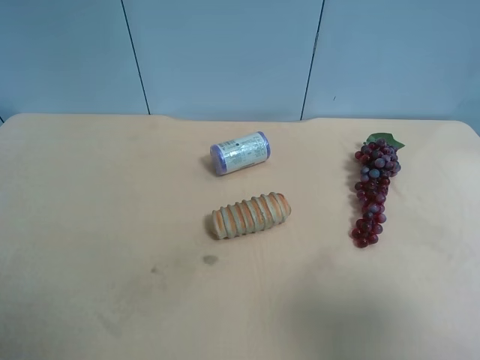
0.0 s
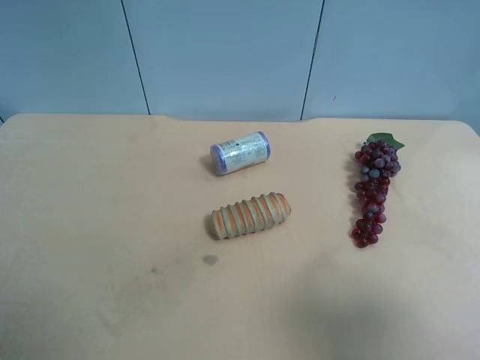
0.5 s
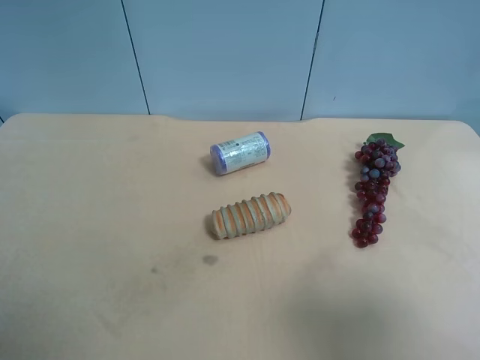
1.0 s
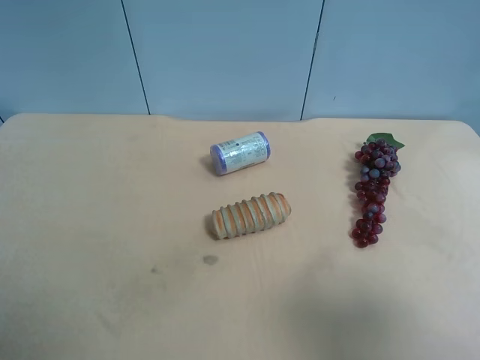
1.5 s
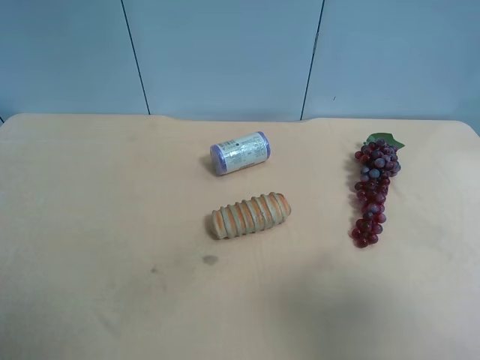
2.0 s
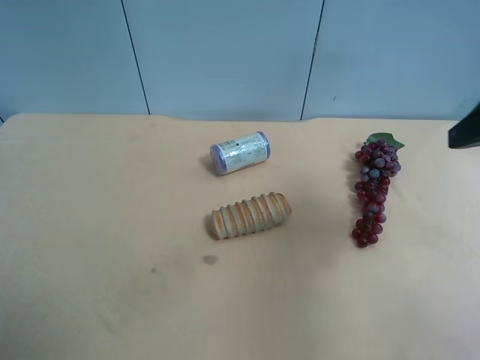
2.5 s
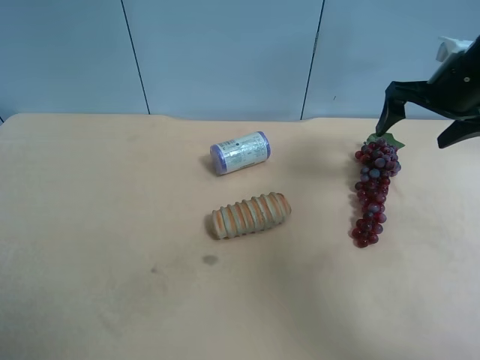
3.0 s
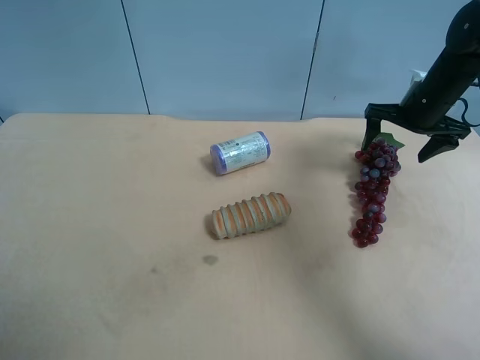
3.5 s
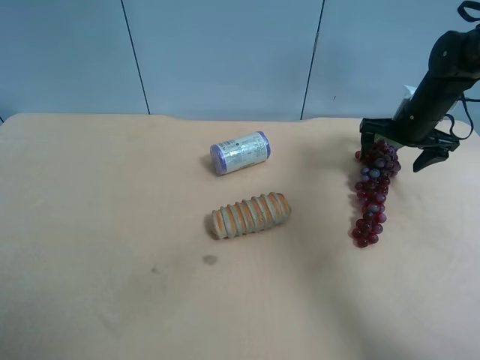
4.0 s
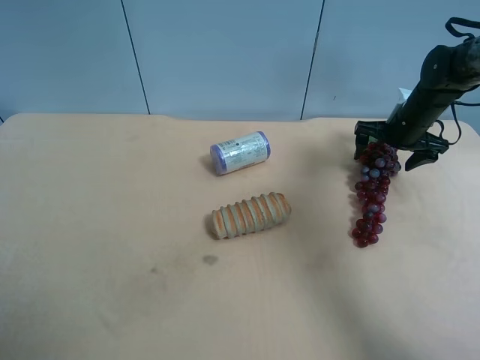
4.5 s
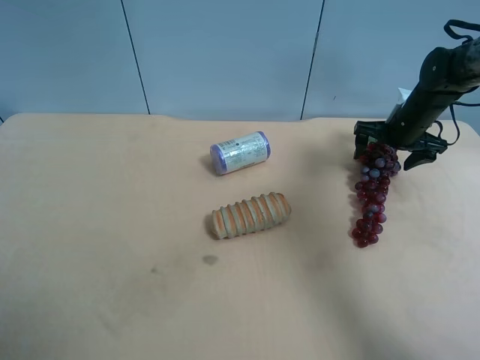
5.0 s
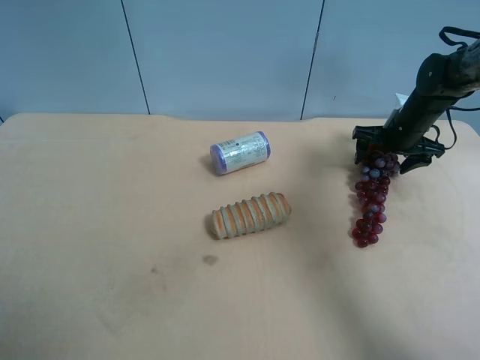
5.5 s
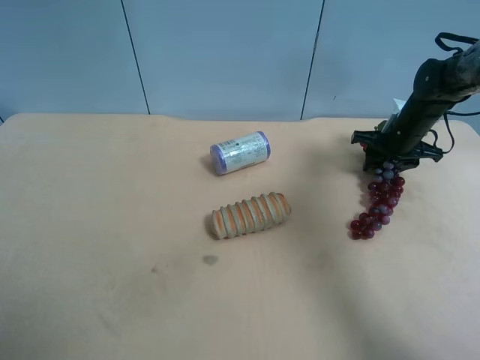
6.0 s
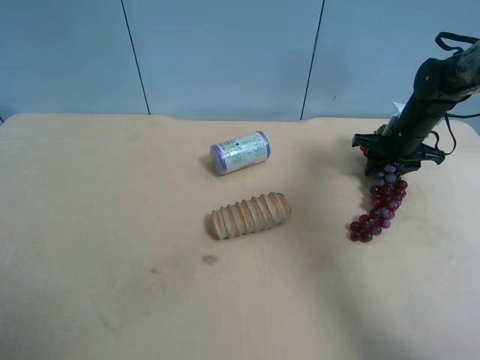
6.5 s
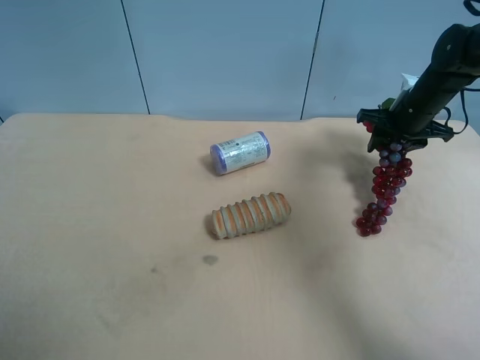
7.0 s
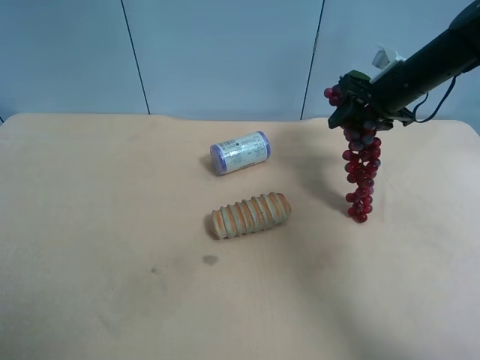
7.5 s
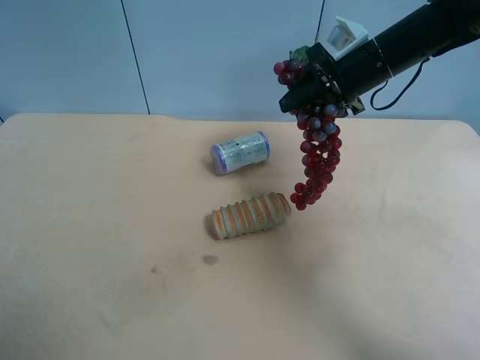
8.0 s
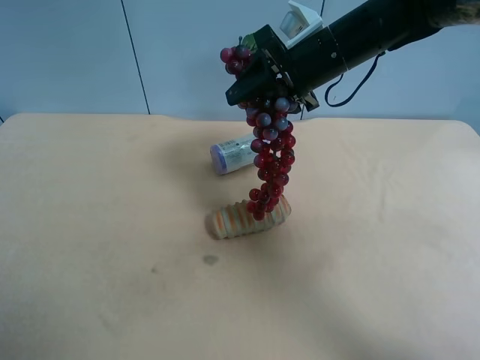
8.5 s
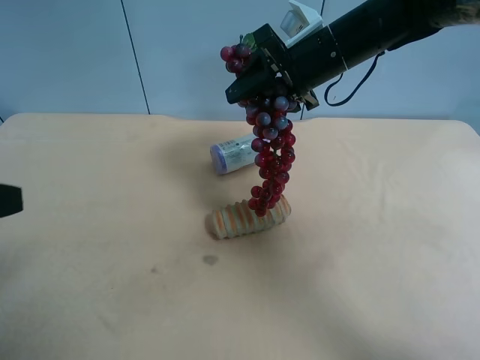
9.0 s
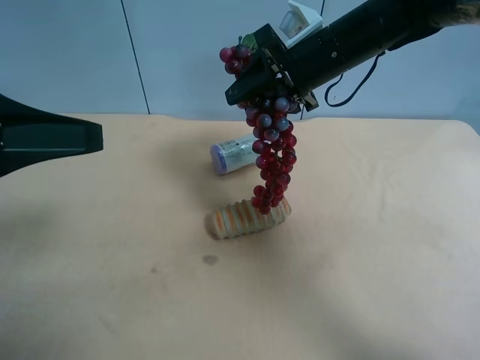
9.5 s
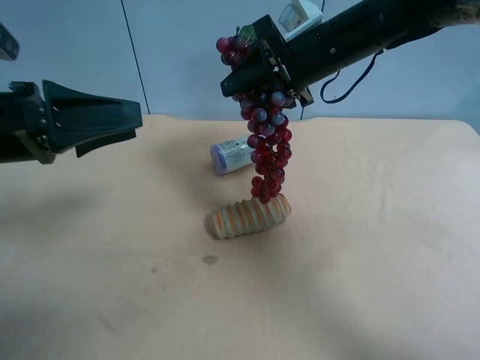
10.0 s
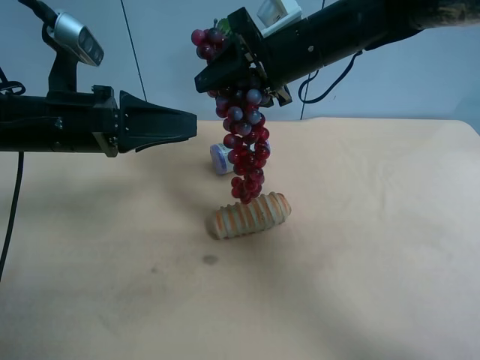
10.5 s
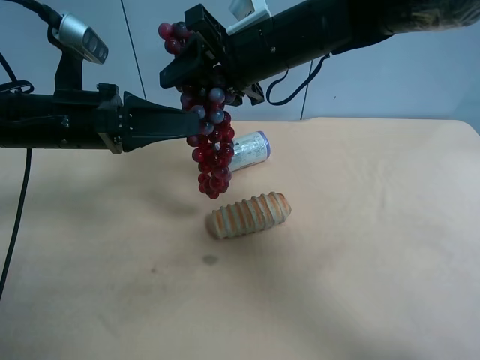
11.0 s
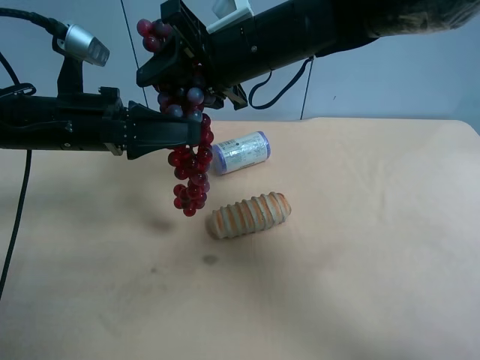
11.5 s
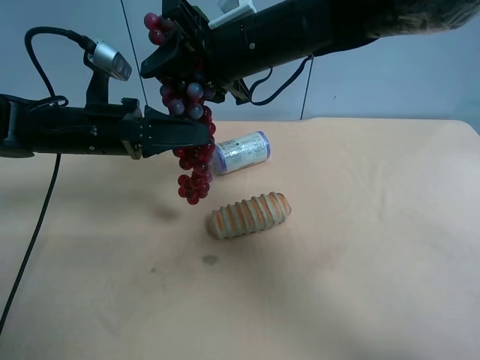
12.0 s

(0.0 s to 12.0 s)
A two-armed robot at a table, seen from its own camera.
Task of the whole recording: use the right gripper to pick up the item and transfer it from the right gripper to the left gripper.
2.0 s - 4.0 s: The right gripper moves forward, approximately 40 cm.
4.0 s - 6.0 s: The right gripper closes.
6.0 s - 8.0 s: The right gripper moves upward and to the left, roughly 20 cm.
8.0 s - 10.0 s: The right gripper heads to the left, covering some 5 cm; the left gripper travels forward by some 20 cm.
10.0 s - 12.0 s: The right gripper shifts some 10 cm to the left. Meanwhile the left gripper heads forward and downward, covering approximately 10 cm.

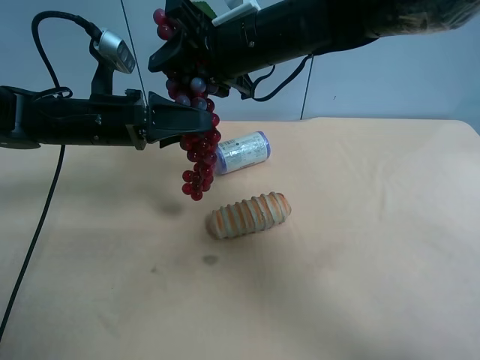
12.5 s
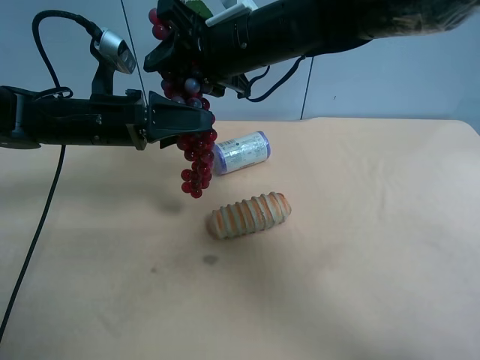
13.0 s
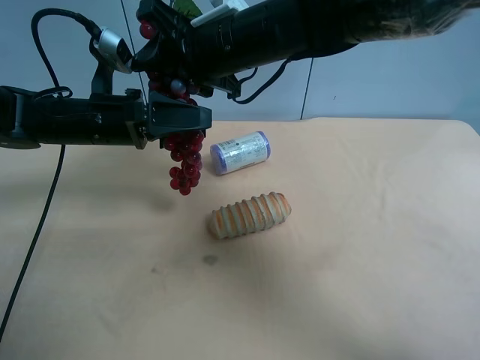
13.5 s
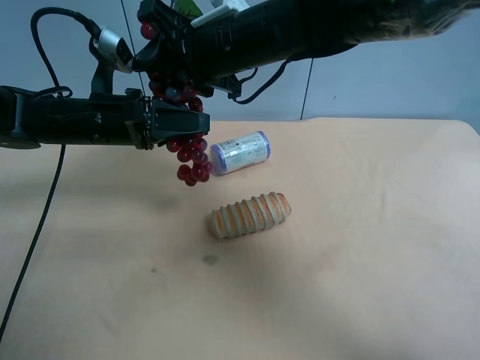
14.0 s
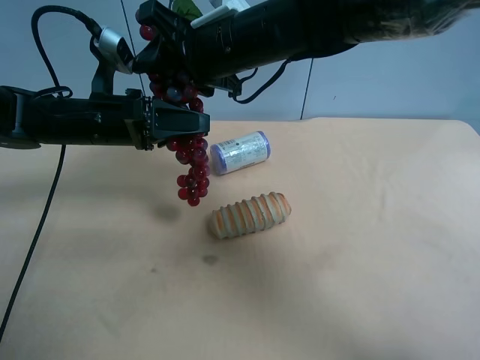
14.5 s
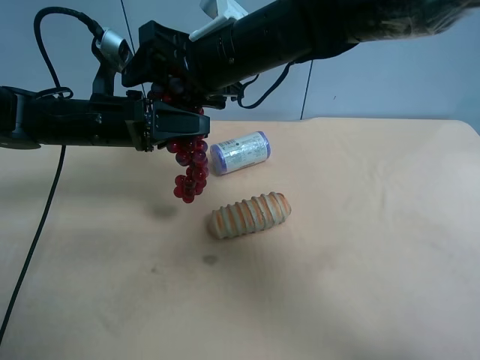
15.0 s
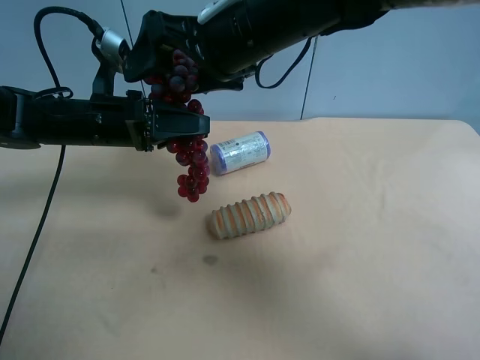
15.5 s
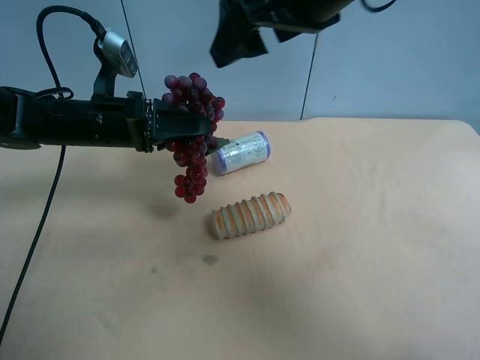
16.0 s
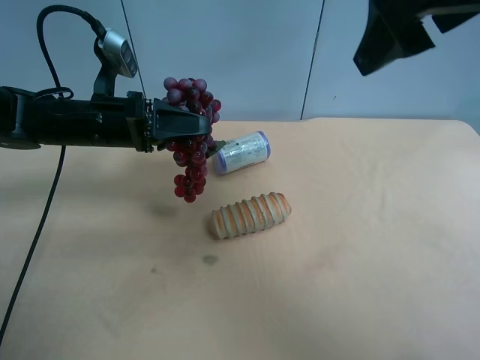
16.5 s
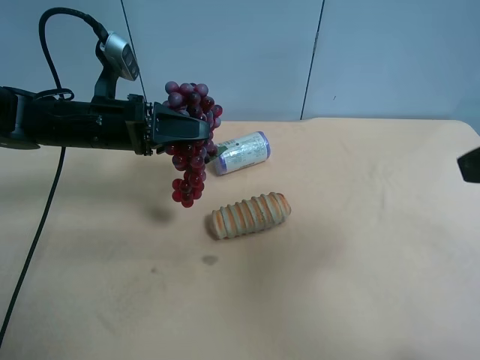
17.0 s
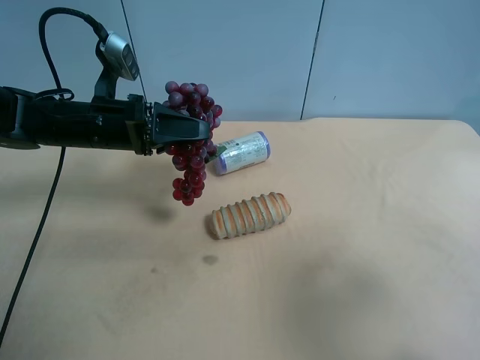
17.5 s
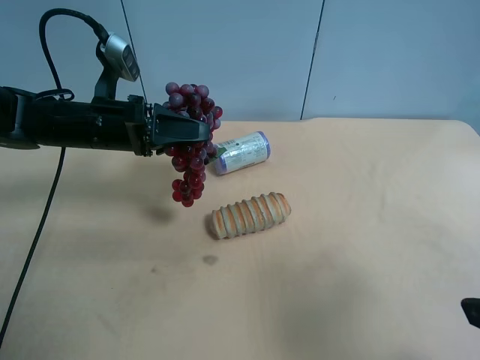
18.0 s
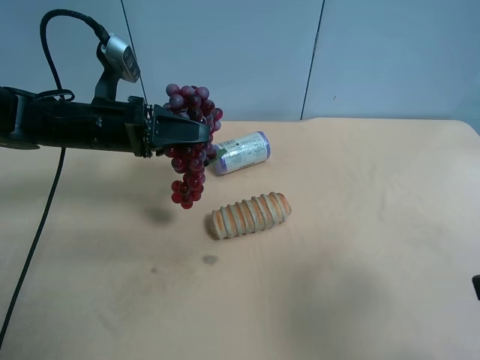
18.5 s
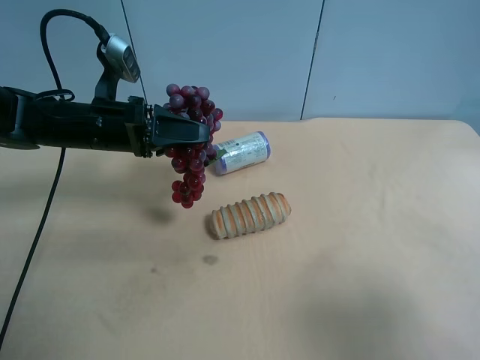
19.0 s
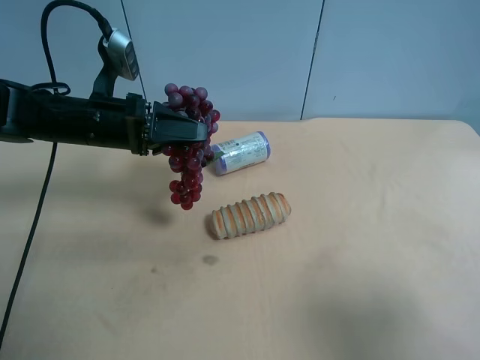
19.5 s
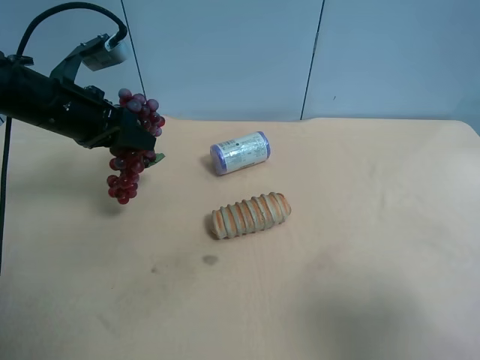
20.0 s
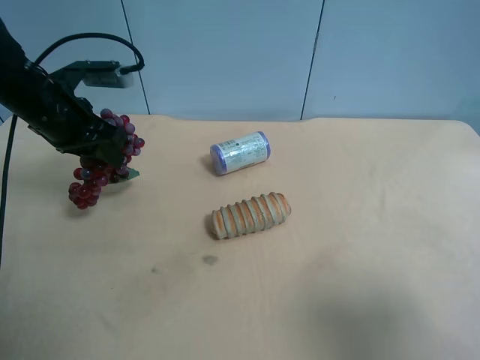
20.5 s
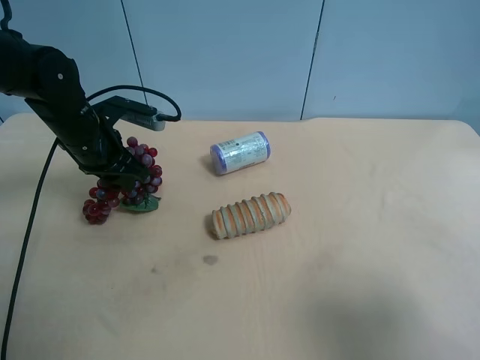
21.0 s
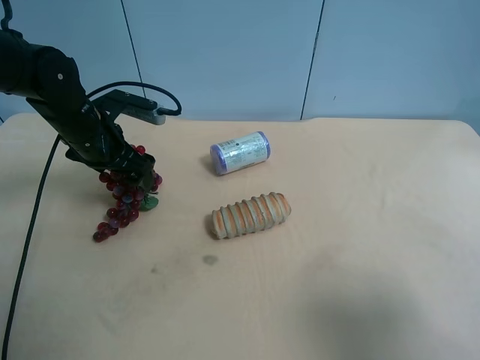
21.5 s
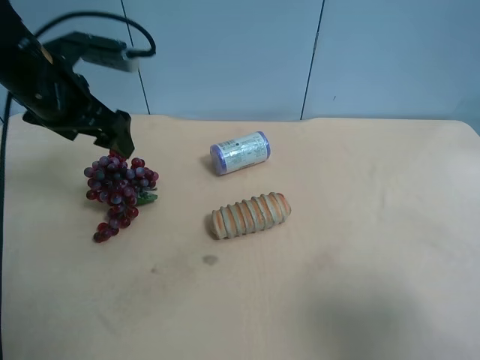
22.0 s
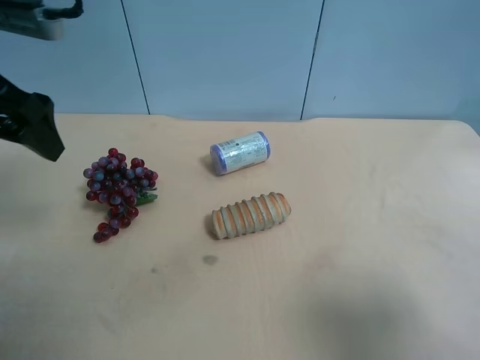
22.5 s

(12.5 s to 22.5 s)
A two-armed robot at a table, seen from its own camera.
Task of the whole recording: use the right gripper to pick up the item and transfer it from the right gripper to the left gripper.
12.5 s - 14.5 s: The left gripper closes up.
14.5 s - 16.5 s: The right gripper shifts some 25 cm to the right, backward and upward, and opens.
16.5 s - 18.5 s: The right gripper is displaced backward, downward and to the right by about 25 cm.
18.5 s - 20.5 s: The left gripper goes about 5 cm to the left.
20.5 s - 22.5 s: The left gripper is displaced upward and backward by about 15 cm, and opens.
